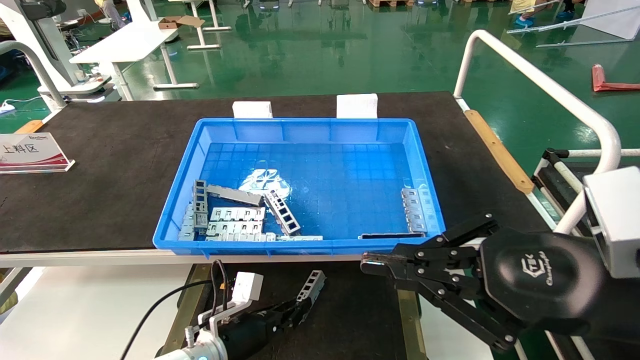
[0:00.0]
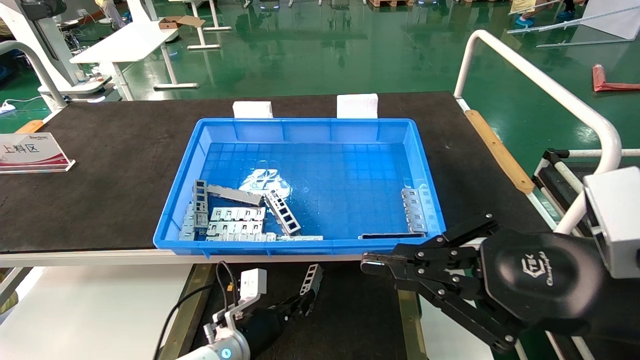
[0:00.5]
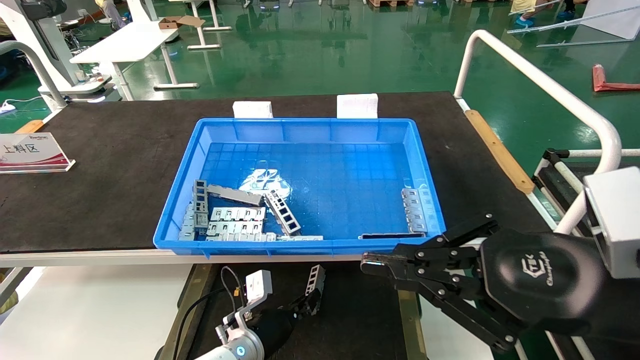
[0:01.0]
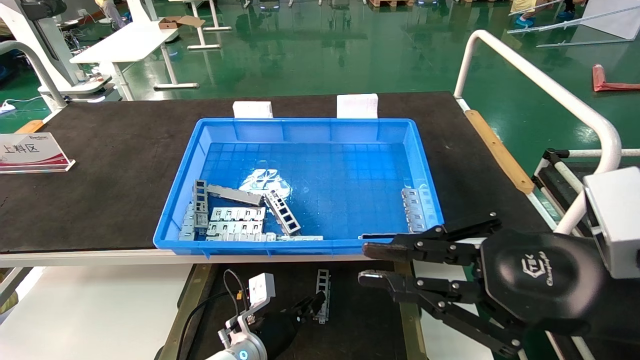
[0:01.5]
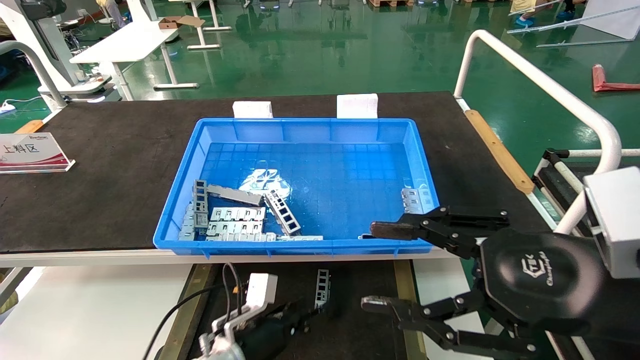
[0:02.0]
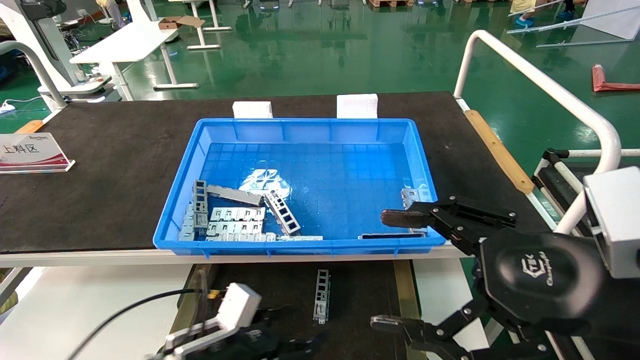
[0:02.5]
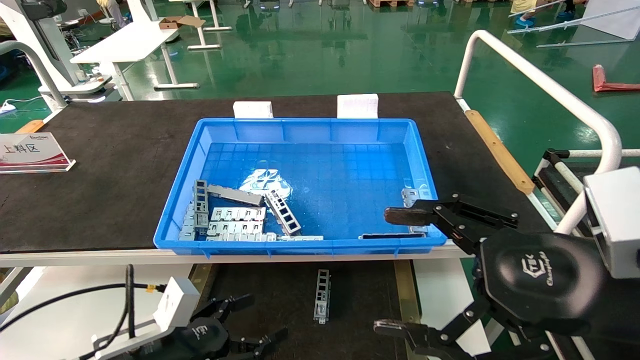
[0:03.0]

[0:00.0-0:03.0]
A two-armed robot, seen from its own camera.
Task of the whole recording: Grasp the part with one hand and place it on the black container.
0:00.0 to 0:01.5: The left gripper goes roughly 5 cm to the right.
0:01.5 to 0:03.0: The right gripper opens; the left gripper shifts roughly 20 cm to the left, backward and upward, and opens up.
